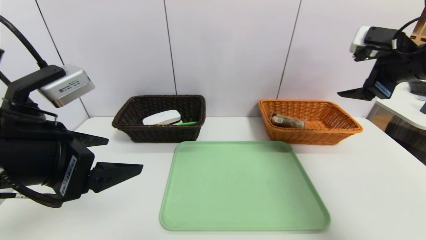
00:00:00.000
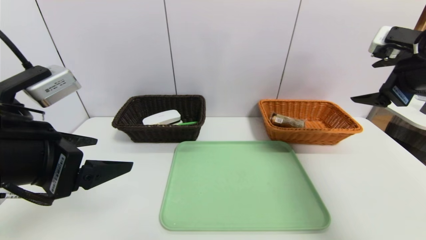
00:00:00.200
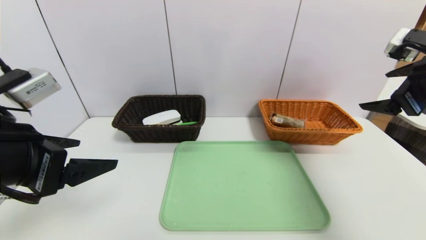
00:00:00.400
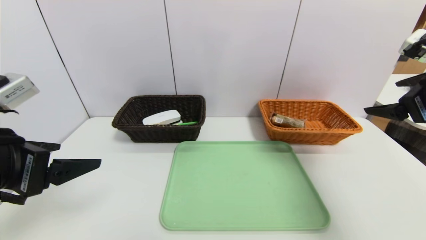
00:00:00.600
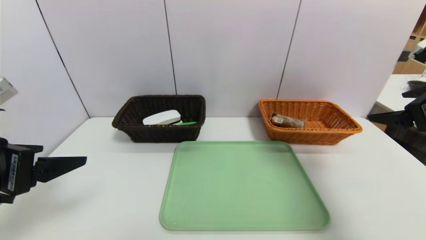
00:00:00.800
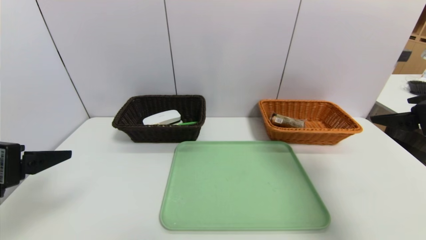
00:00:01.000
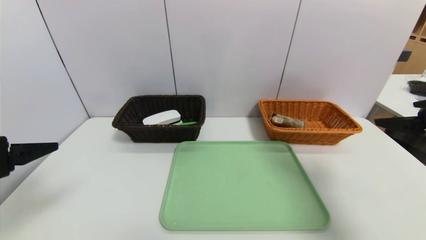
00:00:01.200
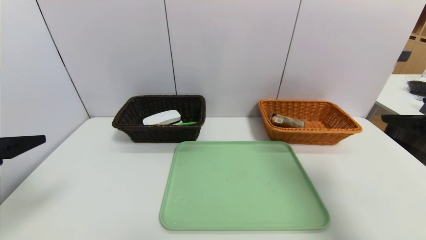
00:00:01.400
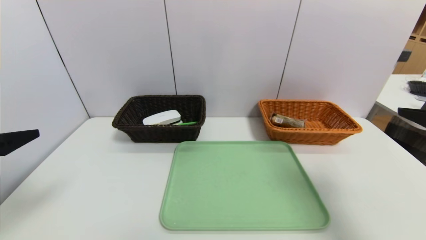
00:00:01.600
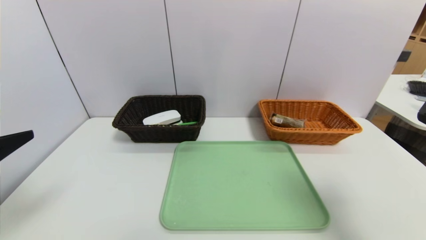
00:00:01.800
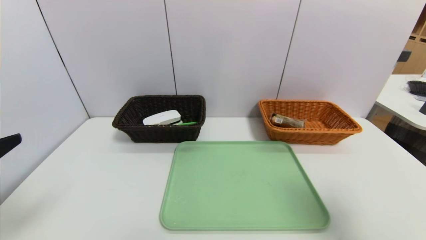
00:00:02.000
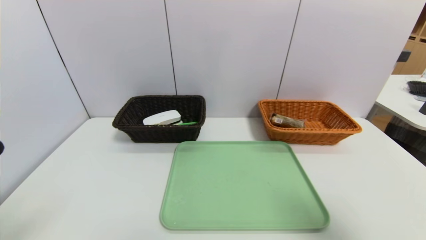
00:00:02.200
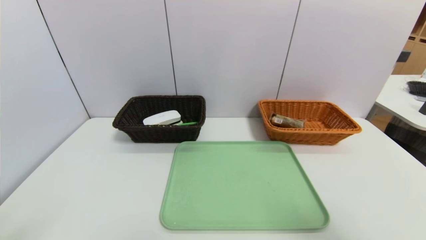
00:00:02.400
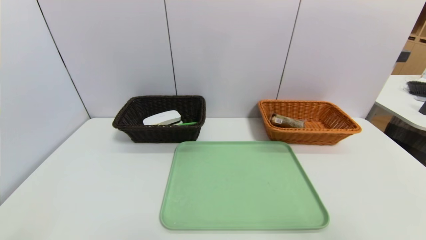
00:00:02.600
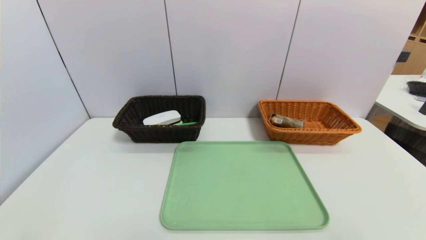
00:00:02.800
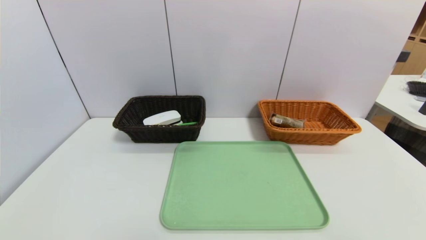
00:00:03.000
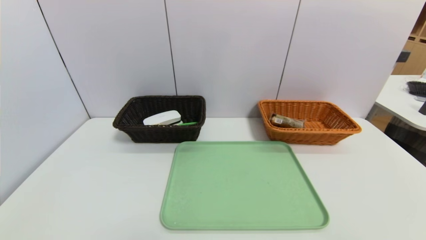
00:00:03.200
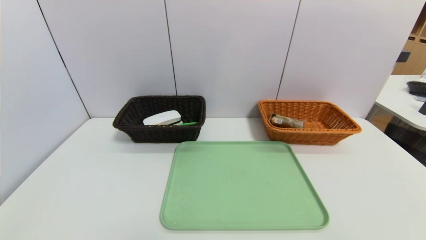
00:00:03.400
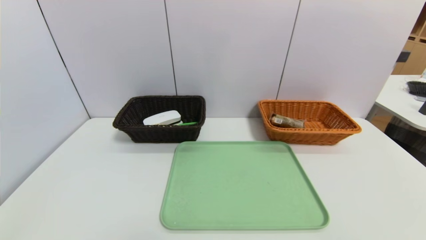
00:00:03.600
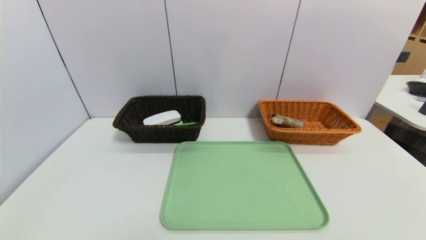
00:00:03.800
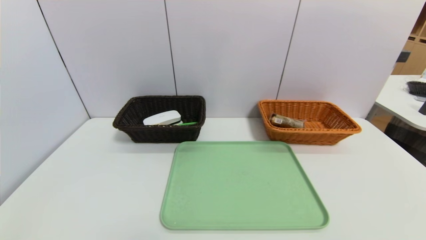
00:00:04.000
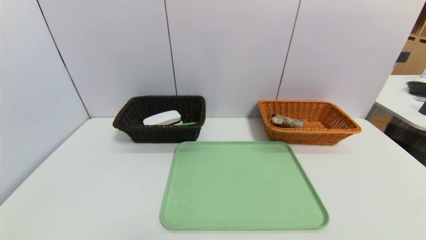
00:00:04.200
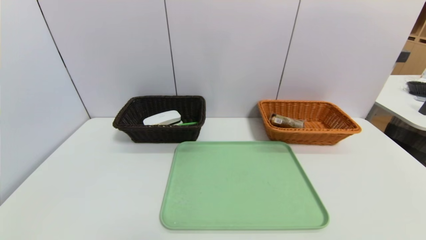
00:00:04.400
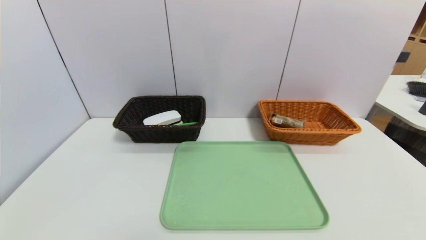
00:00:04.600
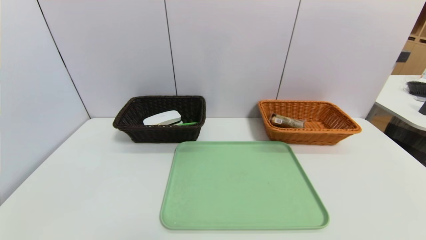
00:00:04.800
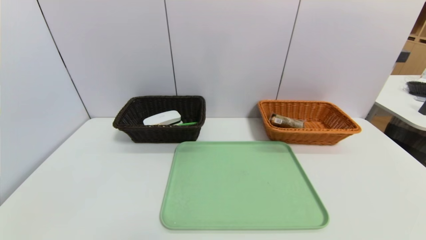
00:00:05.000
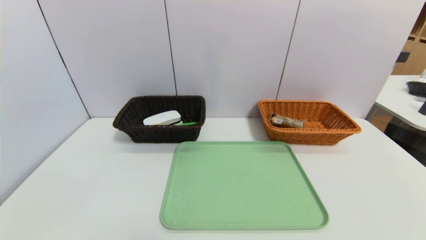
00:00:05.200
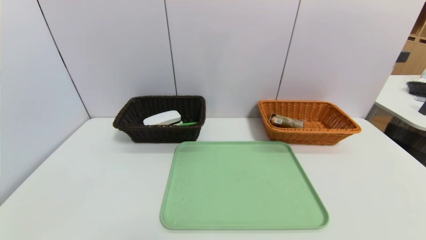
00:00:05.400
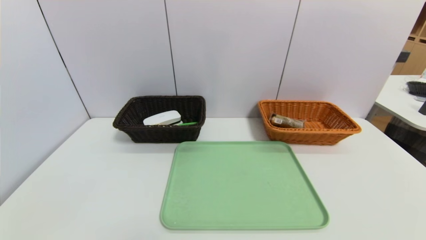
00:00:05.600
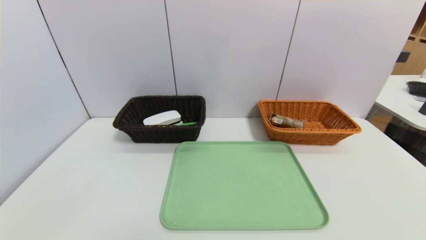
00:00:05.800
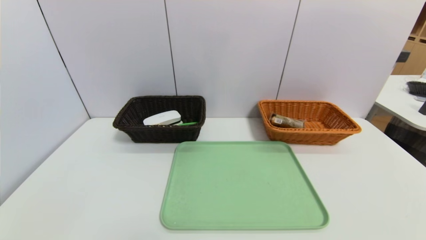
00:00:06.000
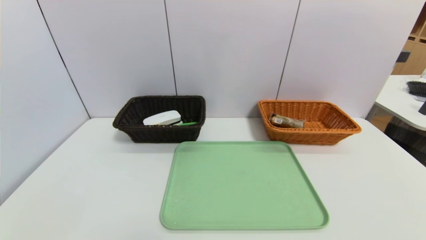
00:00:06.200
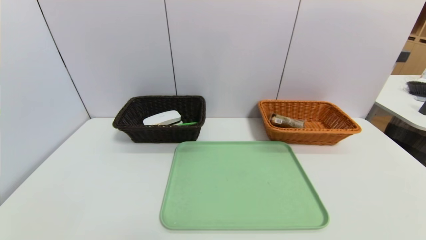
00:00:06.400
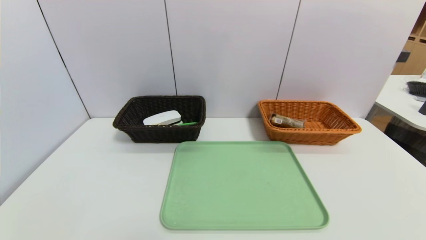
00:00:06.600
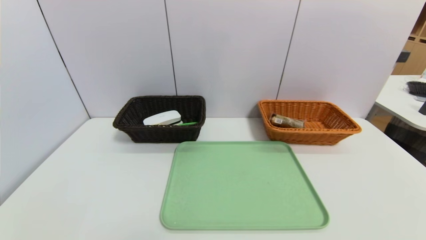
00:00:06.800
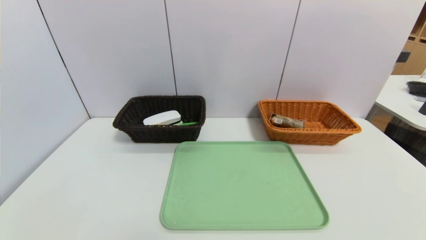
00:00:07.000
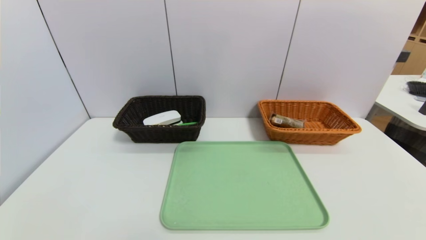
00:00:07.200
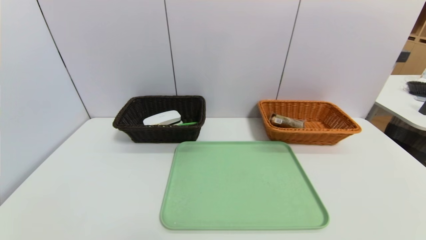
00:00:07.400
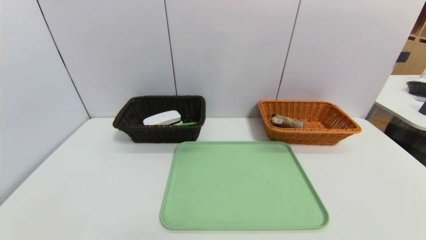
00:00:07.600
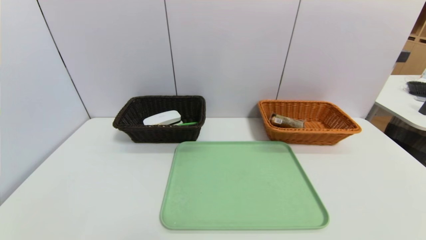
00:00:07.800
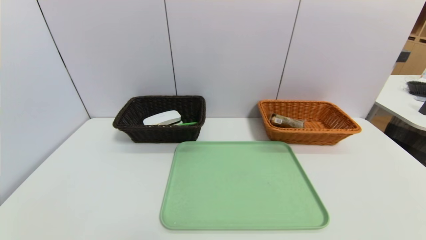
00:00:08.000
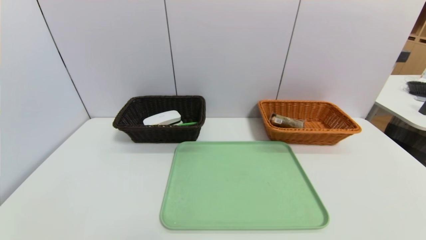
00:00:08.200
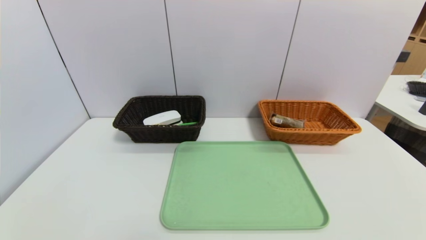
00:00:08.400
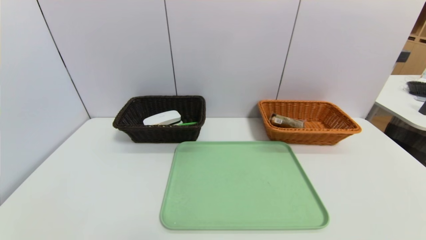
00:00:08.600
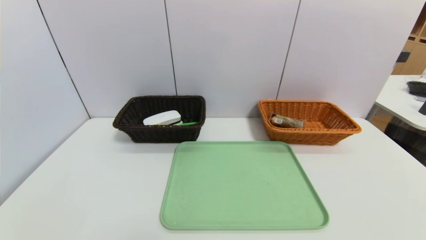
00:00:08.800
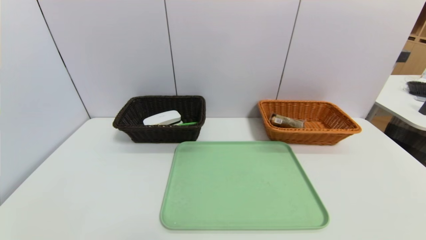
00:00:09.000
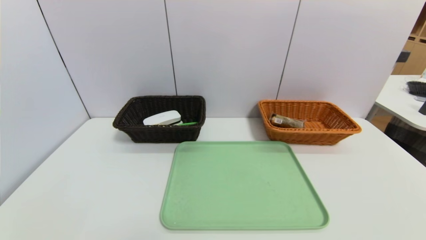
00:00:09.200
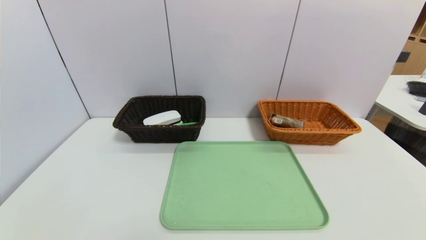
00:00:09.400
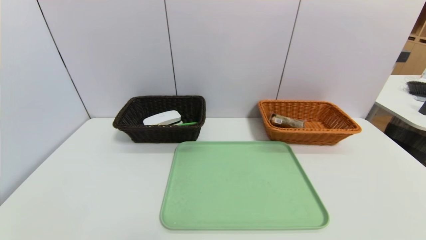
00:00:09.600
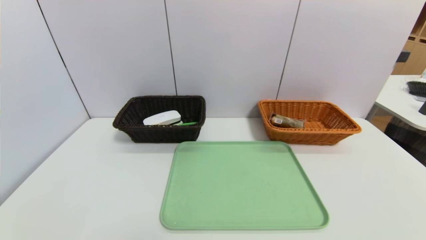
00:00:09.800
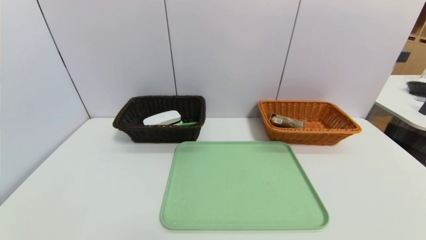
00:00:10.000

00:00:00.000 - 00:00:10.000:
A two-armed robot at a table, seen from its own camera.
Task of the whole recording: place the food in the right basket with the right gripper, and place the non food items in the left basket with the left gripper.
00:00:00.000 - 00:00:01.400: The left gripper heads to the left, covering roughly 10 cm. Meanwhile the right gripper goes some 15 cm backward.
00:00:01.400 - 00:00:02.800: The two grippers go about 15 cm backward.
00:00:08.600 - 00:00:10.000: Both grippers stay about where they are.

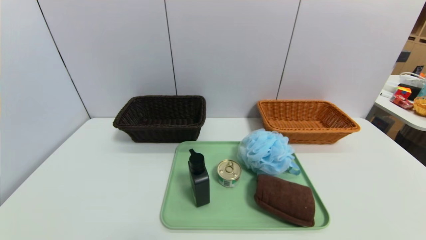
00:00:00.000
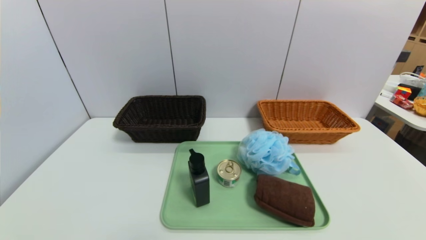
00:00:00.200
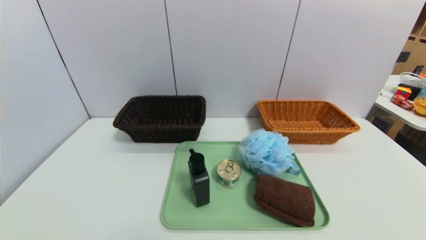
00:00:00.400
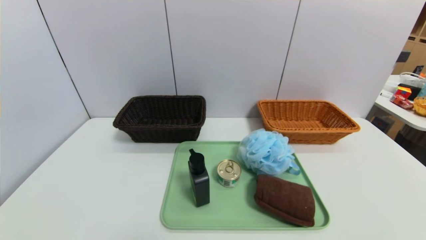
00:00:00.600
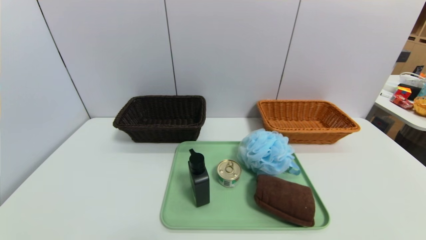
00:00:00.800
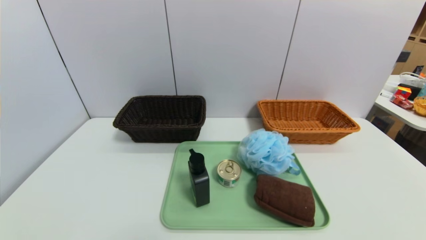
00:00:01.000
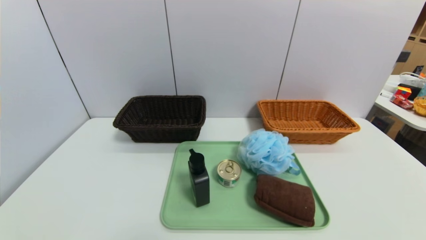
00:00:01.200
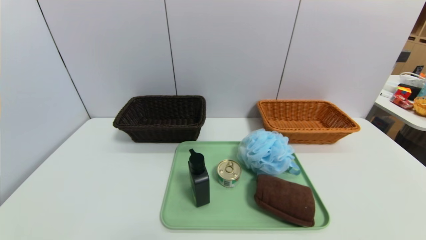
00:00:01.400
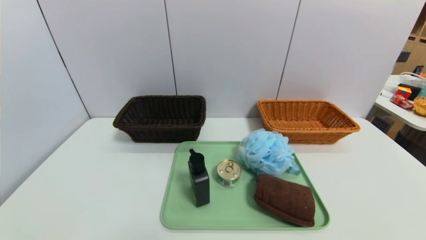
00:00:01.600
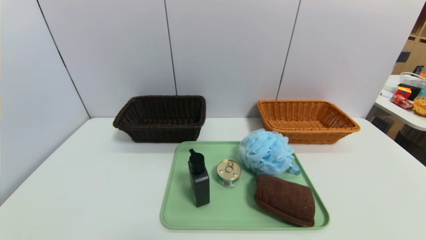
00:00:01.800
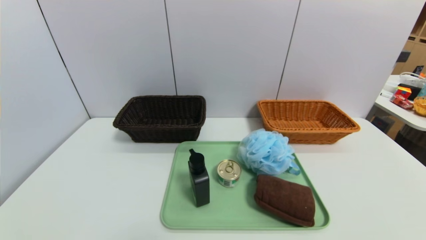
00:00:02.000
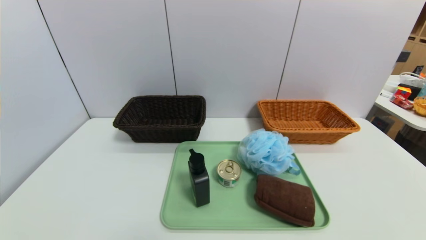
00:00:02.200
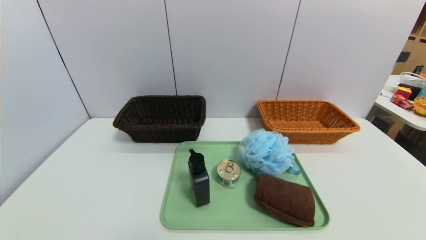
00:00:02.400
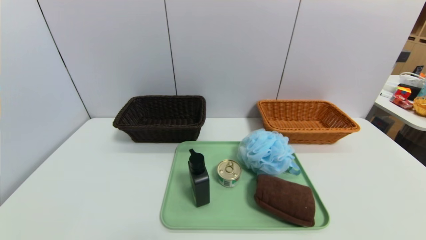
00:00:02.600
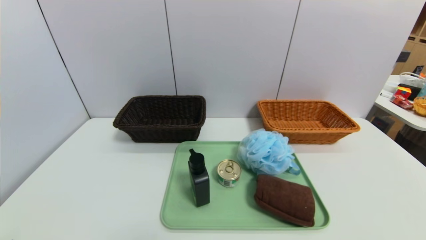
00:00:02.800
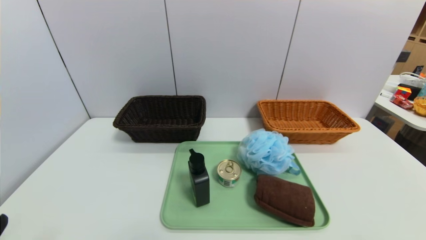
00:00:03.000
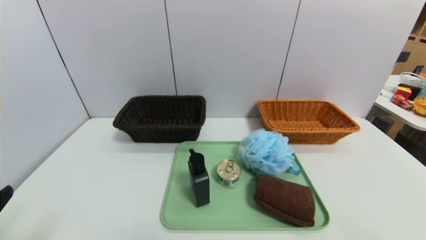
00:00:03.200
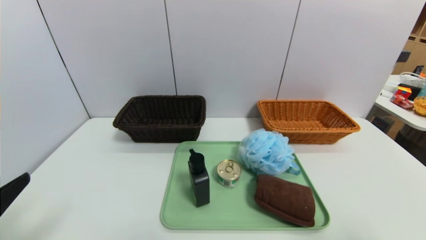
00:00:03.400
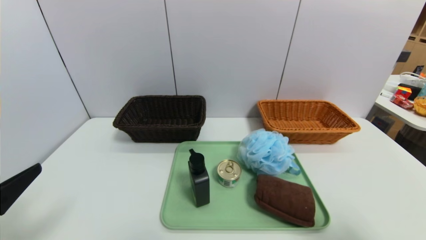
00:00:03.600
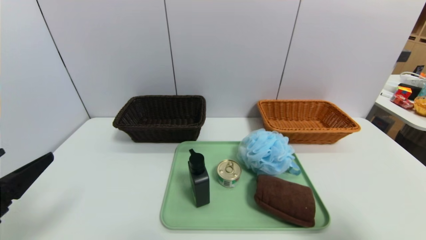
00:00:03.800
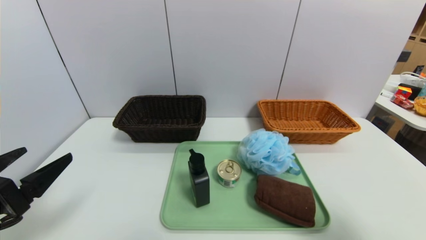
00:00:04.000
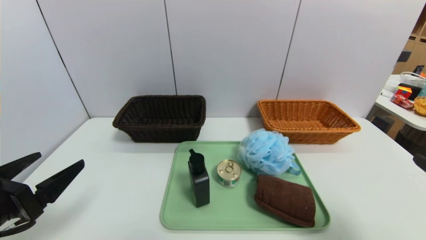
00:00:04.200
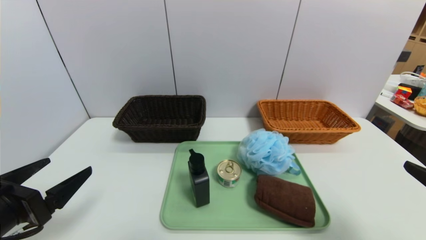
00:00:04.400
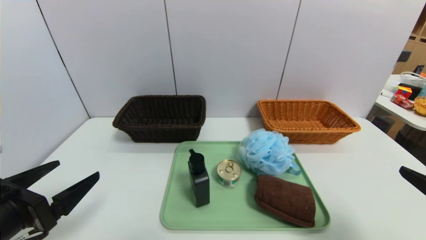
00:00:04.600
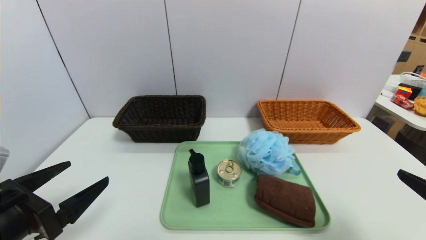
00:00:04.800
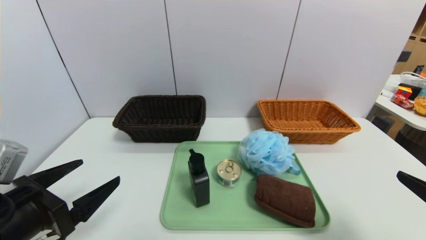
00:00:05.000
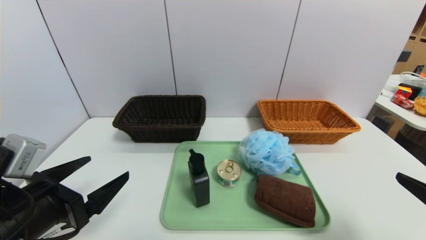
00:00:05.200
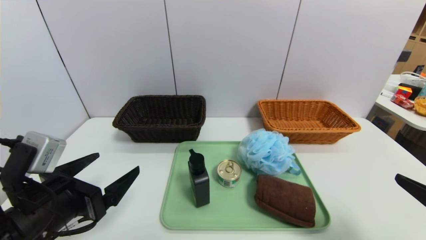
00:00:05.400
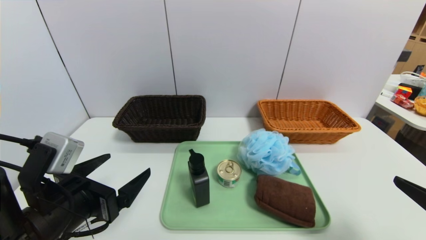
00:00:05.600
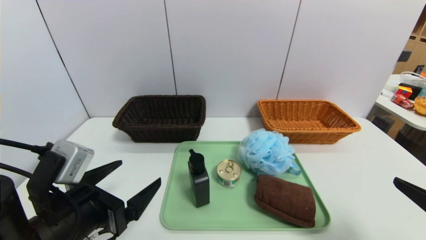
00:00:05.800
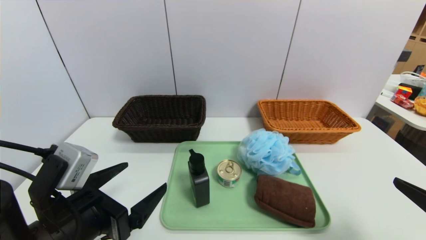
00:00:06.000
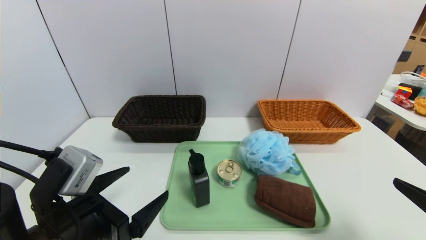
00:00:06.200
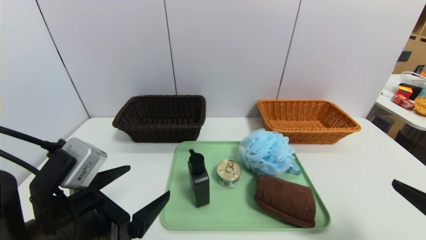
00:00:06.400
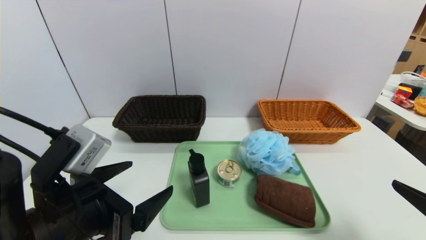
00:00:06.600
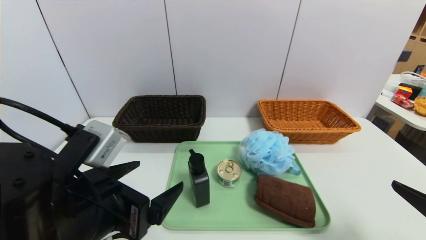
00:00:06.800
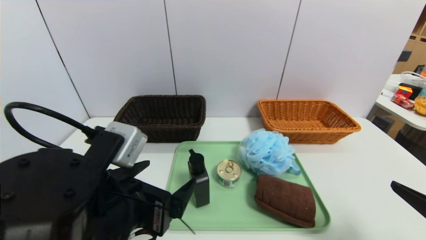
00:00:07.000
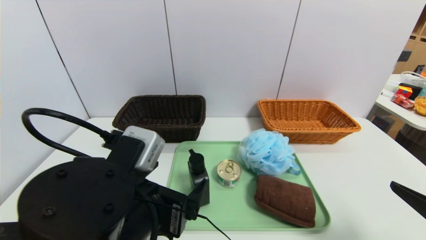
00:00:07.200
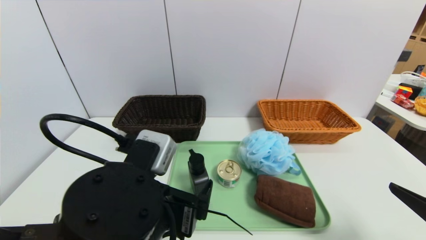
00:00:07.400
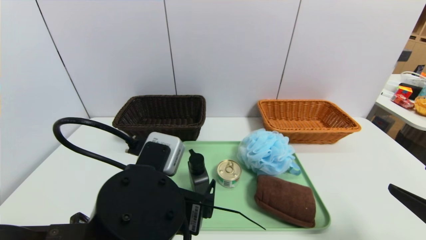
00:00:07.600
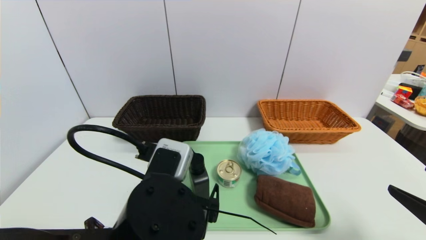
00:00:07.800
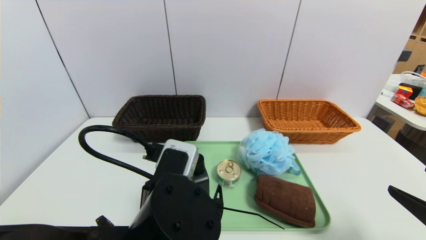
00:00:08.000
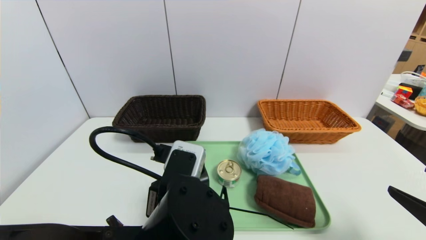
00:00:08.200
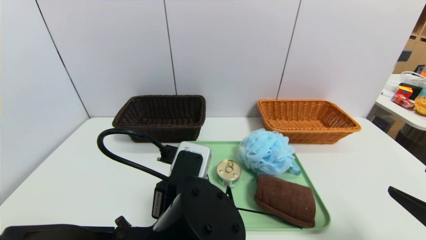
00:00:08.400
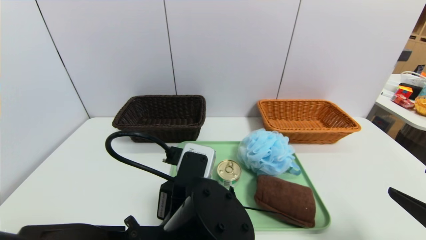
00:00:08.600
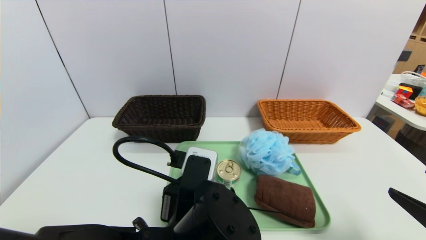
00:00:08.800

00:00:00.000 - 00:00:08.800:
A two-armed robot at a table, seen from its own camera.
Task of the whole recording: place the food in the right basket with the right gripper, and place the non food items in the left basket with the left gripper.
00:00:00.000 - 00:00:01.400: The two grippers keep their place.
00:00:03.000 - 00:00:04.400: The two grippers go roughly 10 cm forward.
00:00:04.400 - 00:00:05.800: The left gripper moves to the right, approximately 10 cm.
00:00:05.800 - 00:00:07.400: The left gripper travels to the right by some 10 cm.
00:00:07.400 - 00:00:08.800: The left gripper moves to the right, some 5 cm.
